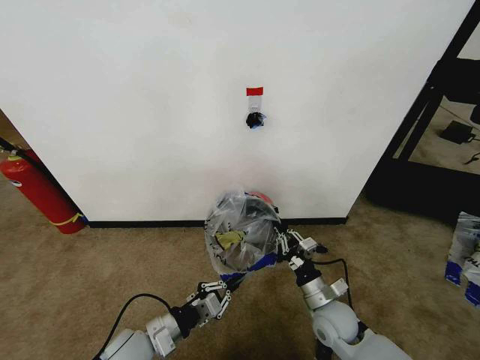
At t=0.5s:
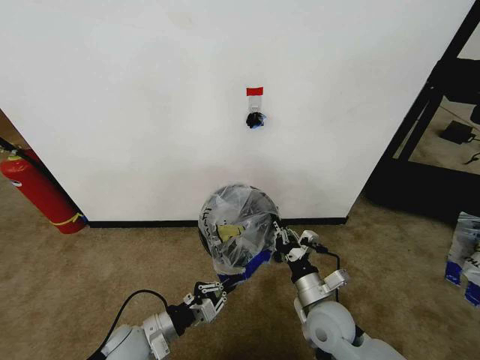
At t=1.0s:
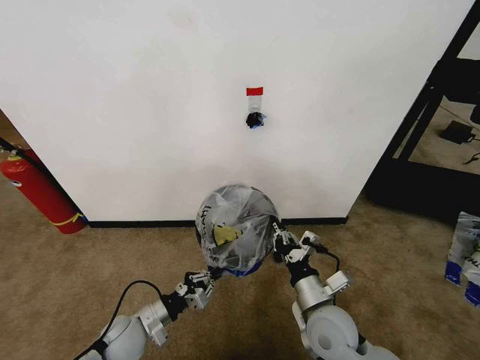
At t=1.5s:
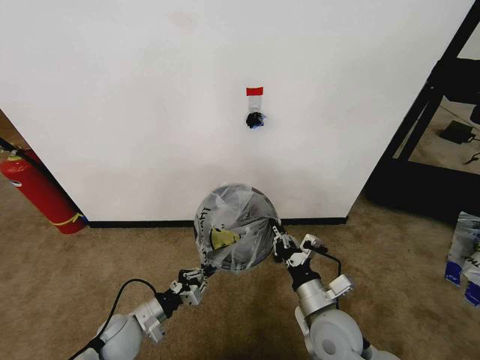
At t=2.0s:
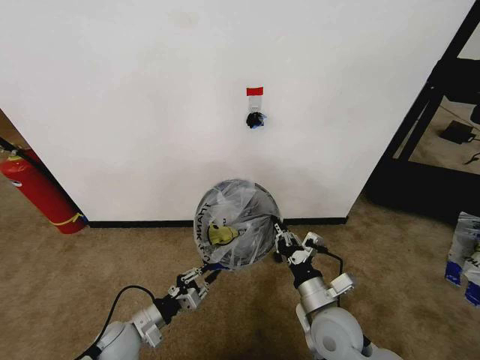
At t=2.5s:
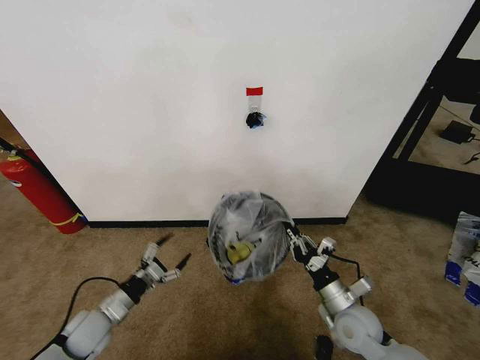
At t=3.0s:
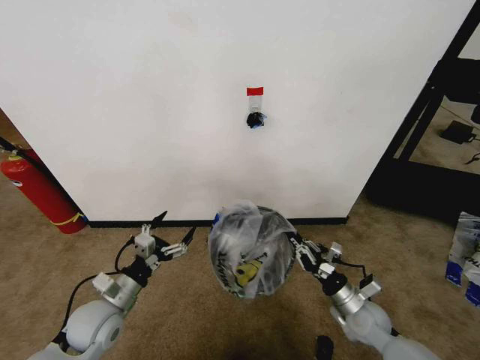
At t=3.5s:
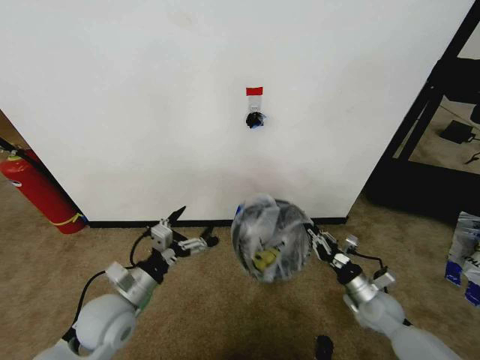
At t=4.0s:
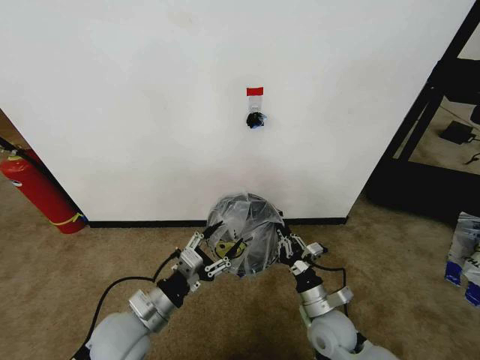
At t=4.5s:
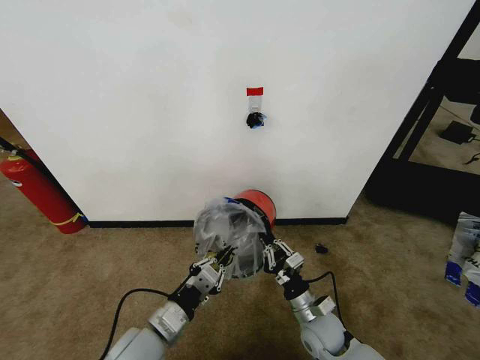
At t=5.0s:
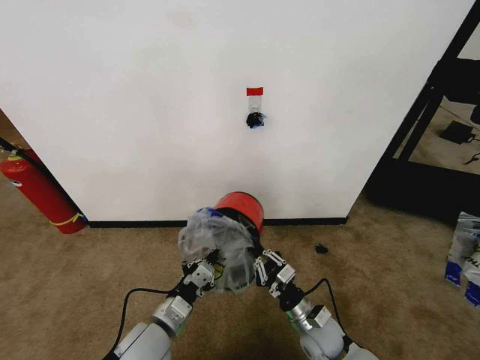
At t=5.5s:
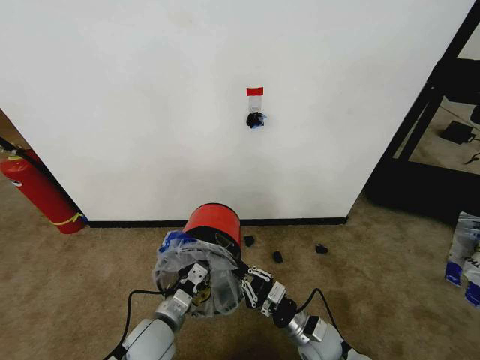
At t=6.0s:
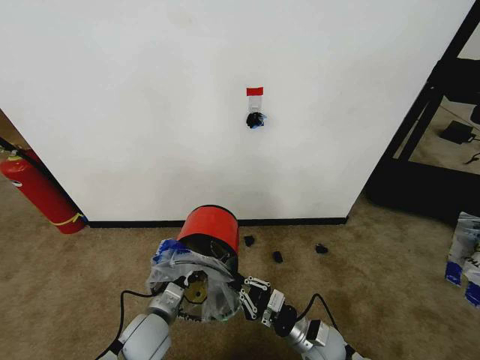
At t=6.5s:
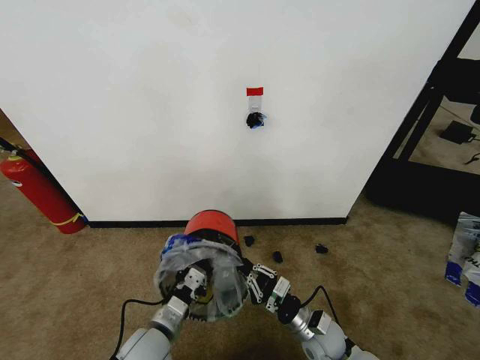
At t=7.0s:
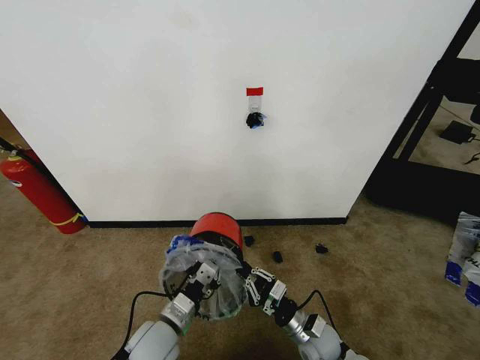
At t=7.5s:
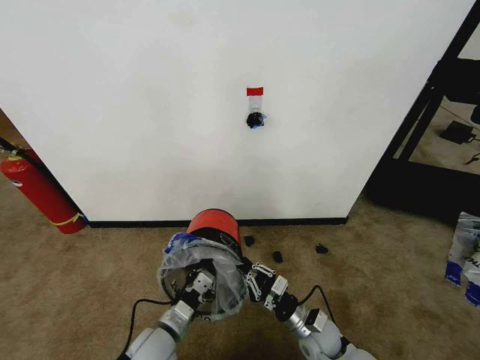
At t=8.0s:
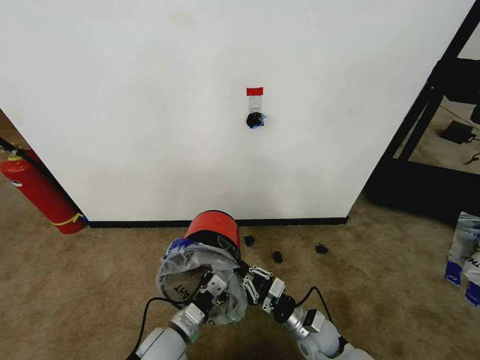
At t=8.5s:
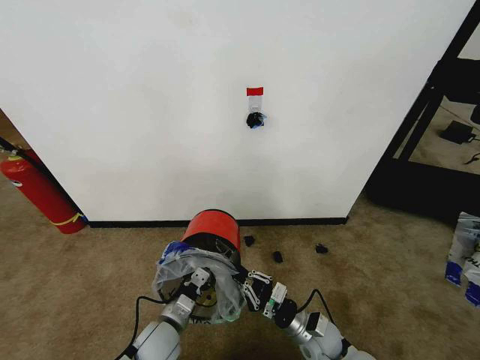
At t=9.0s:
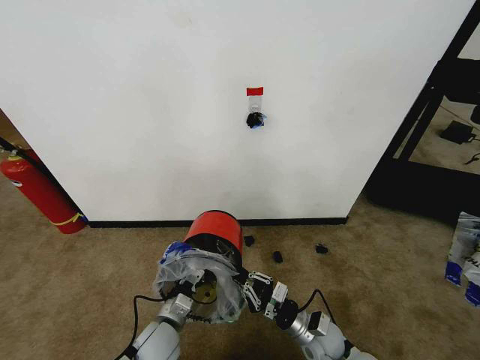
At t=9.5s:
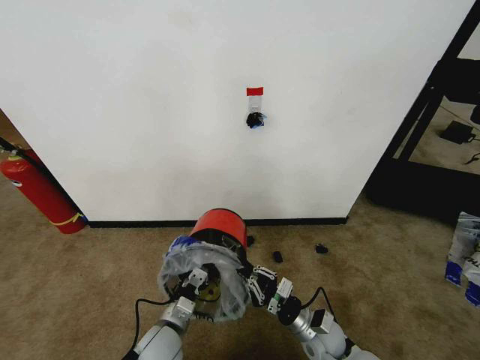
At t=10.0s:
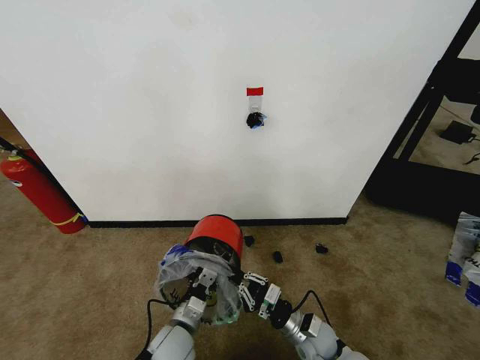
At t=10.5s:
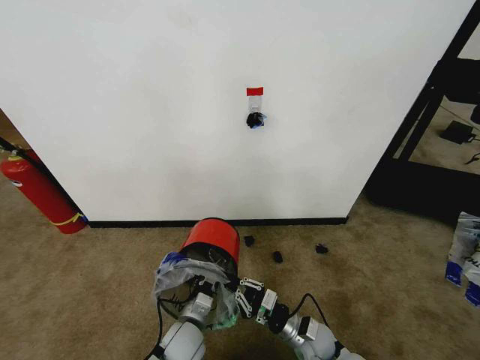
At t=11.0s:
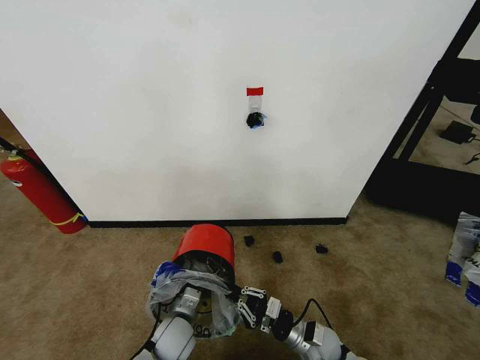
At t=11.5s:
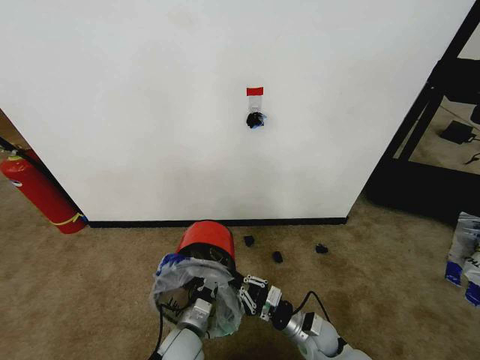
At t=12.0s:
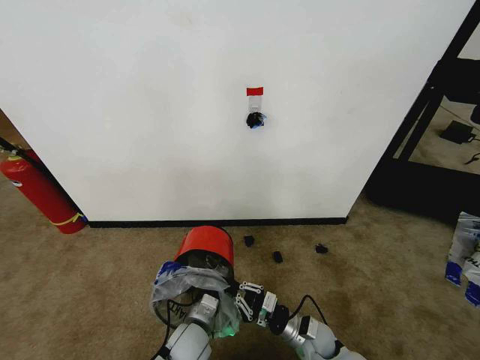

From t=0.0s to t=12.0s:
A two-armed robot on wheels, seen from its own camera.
Task of the whole recording: Pick up the garbage bag from the wall and place it over the trash bin.
From t=0.0s to t=2.0s: The right gripper is displaced upward by some 10 cm; the left gripper goes some 10 cm to the left and downward.
From t=2.0s to t=4.0s: The left gripper goes some 15 cm upward and to the right, and opens, then closes once more. Meanwhile the right gripper moves downward, approximately 10 cm, and reaches about 15 cm to the right, then returns.
From t=4.0s to t=6.0s: The left gripper moves downward, some 10 cm, and closes its fingers.
From t=10.0s to t=12.0s: The grippers move only a little.

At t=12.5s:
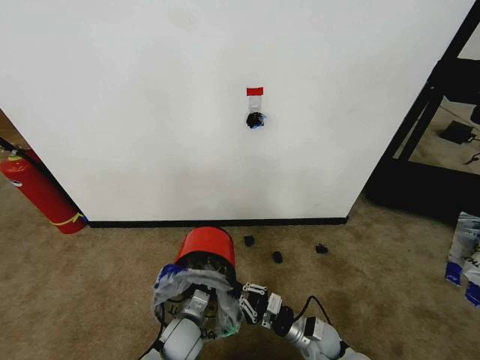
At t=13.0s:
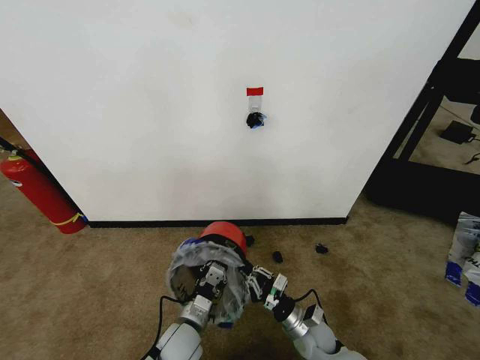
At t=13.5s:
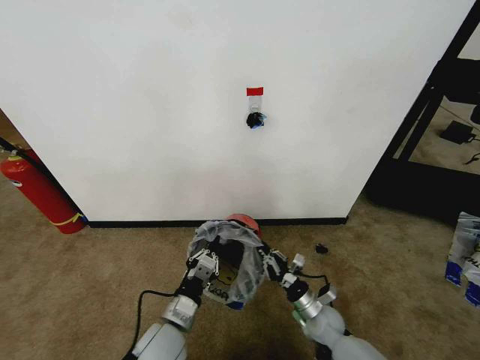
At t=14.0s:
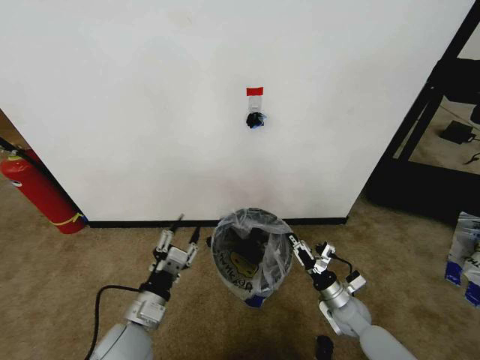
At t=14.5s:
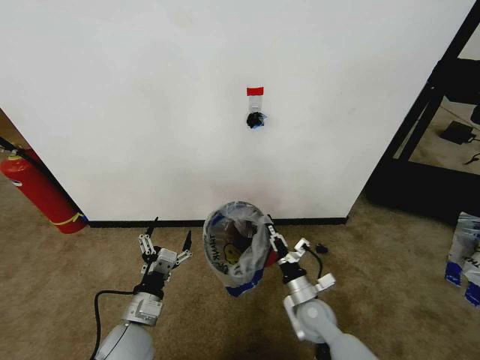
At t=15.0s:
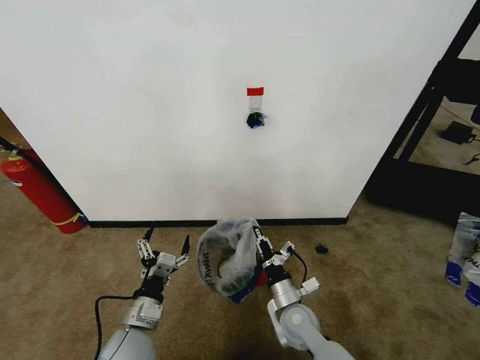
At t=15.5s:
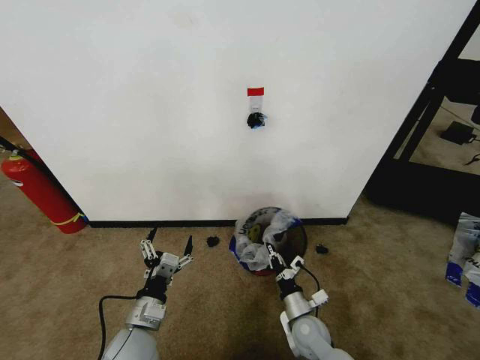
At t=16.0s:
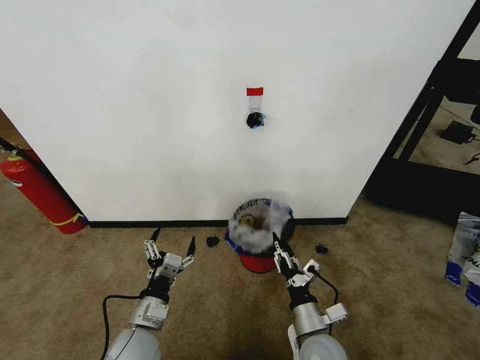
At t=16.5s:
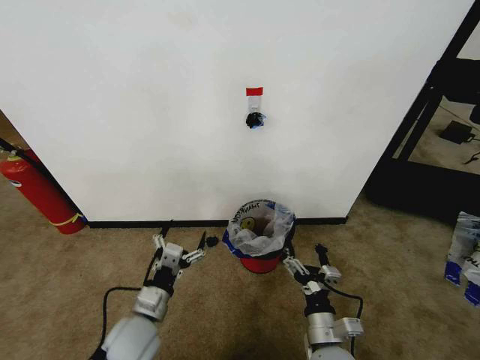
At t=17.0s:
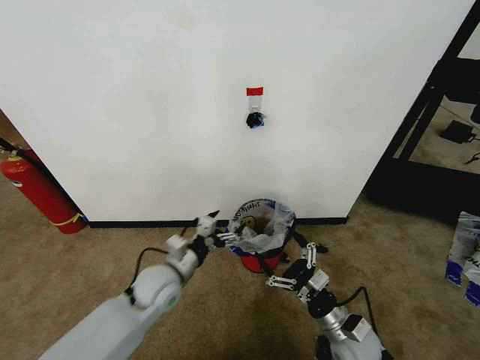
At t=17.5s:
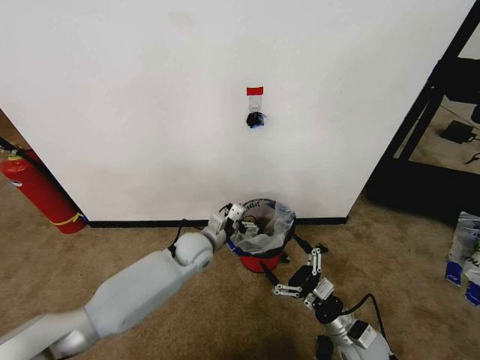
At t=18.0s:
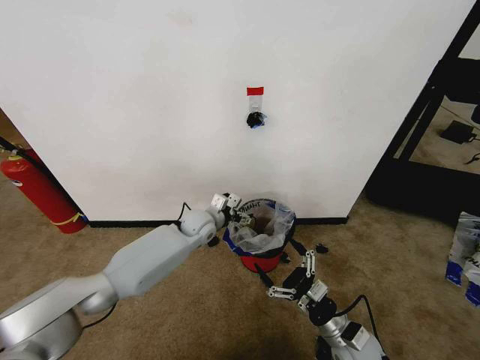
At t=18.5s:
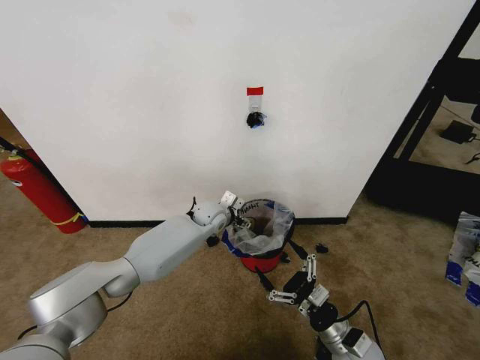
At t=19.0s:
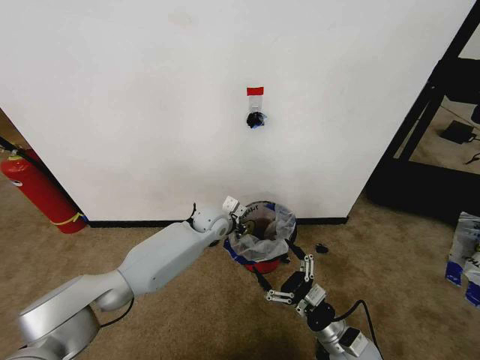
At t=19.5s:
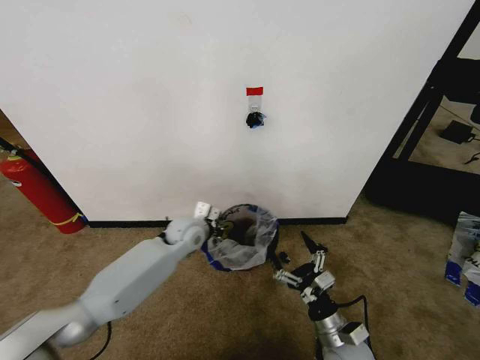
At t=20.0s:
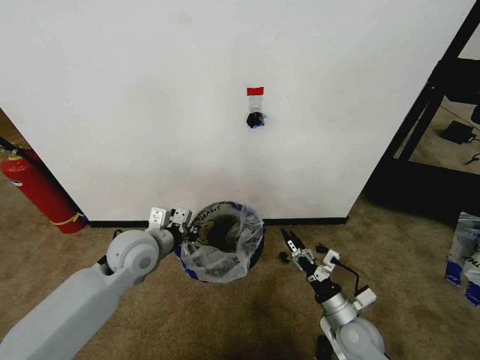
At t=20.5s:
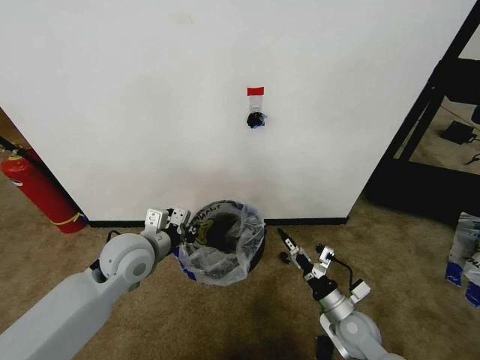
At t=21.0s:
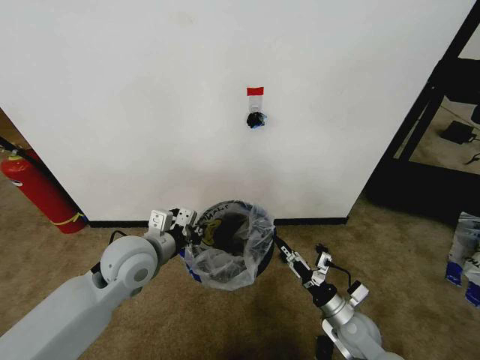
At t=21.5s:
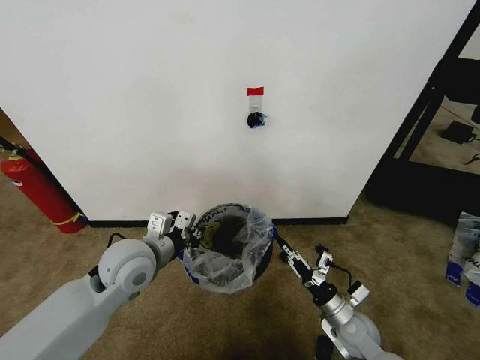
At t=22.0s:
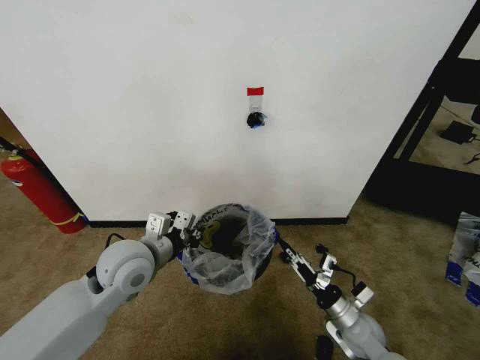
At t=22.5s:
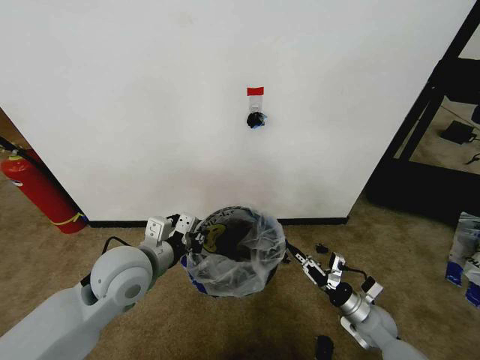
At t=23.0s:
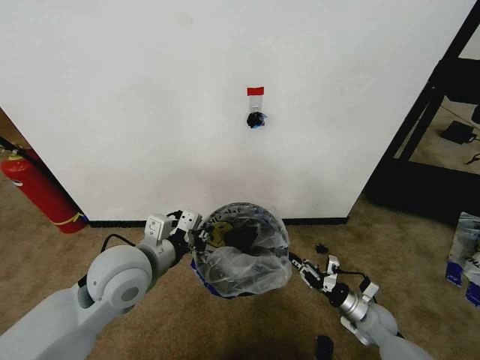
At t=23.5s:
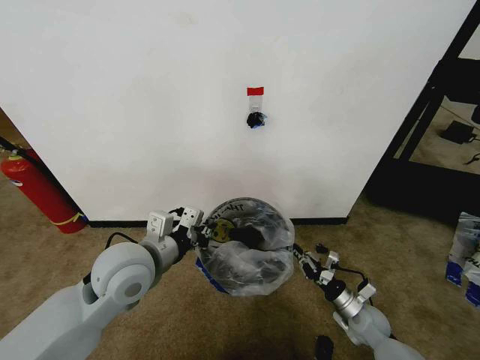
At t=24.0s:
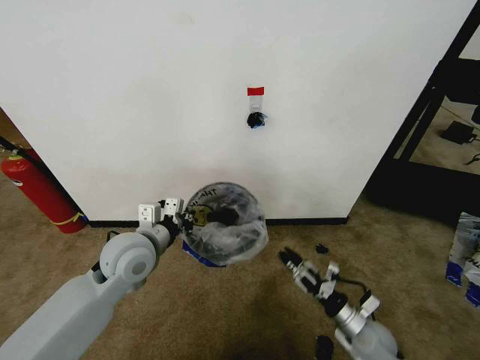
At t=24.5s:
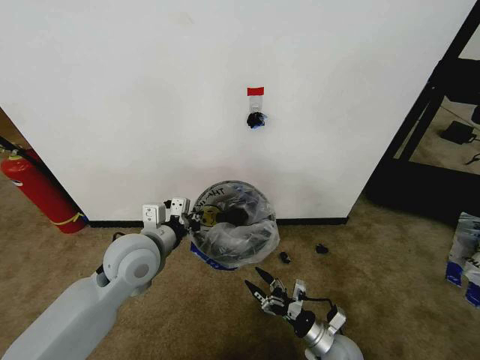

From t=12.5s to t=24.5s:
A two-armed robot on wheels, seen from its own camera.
Task of the whole recording: Pick up the garbage bag from the wall and place it over the trash bin.
From t=12.5s to t=14.5s: The left gripper goes about 15 cm upward and to the left, and opens its fingers, while the right gripper travels to the right and back again, roughly 10 cm each way.
From t=14.5s to t=16.5s: The right gripper goes roughly 10 cm backward and upward, and opens its fingers.
From t=16.5s to t=18.5s: The right gripper shifts approximately 5 cm to the right, while the left gripper shifts roughly 30 cm forward.
From t=18.5s to t=20.5s: The left gripper travels backward, to the left and upward by about 25 cm, and closes up.
From t=20.5s to t=22.5s: The right gripper moves to the right, about 5 cm, and closes its fingers.
From t=22.5s to t=24.5s: The right gripper goes some 10 cm to the left and backward, and opens its fingers.

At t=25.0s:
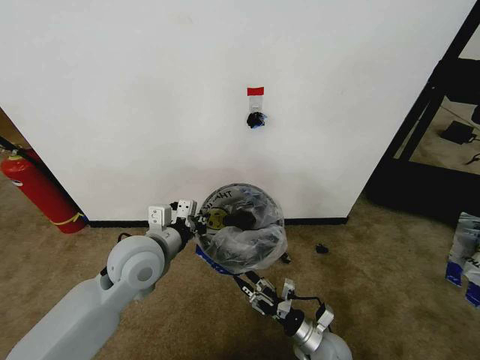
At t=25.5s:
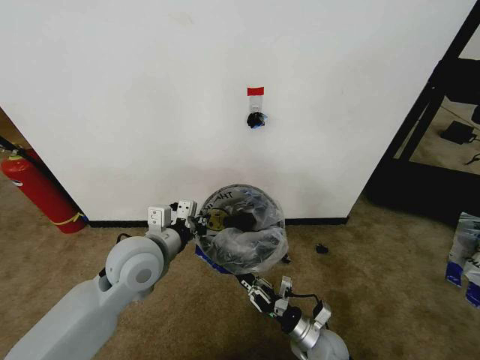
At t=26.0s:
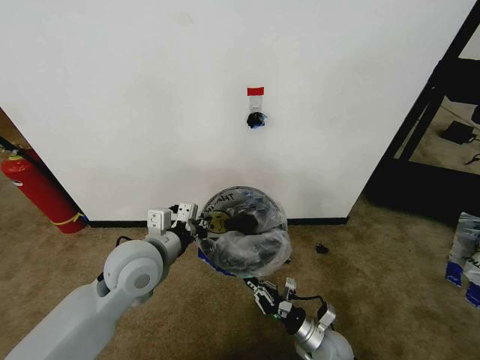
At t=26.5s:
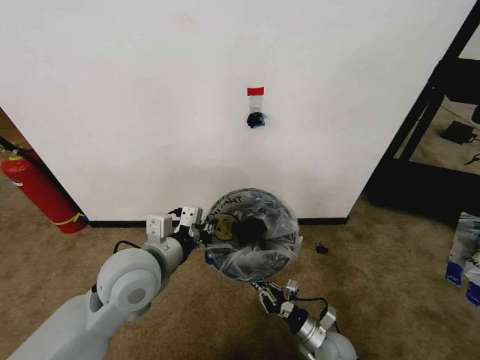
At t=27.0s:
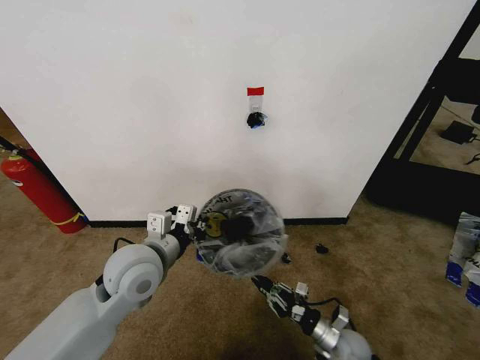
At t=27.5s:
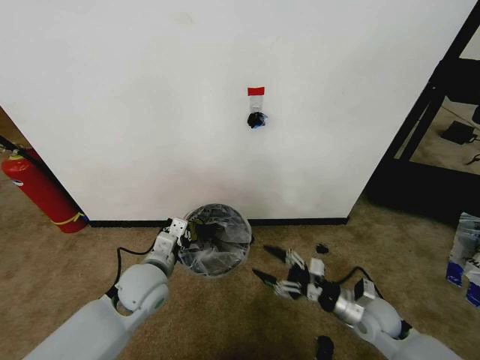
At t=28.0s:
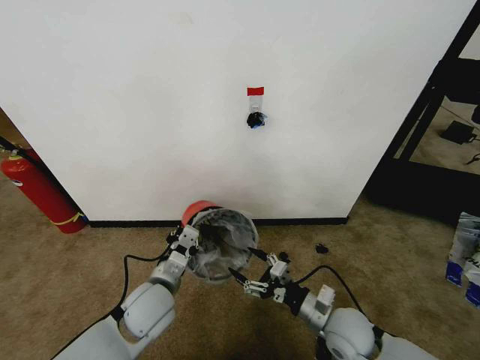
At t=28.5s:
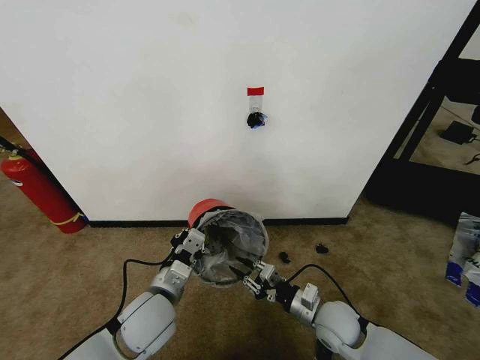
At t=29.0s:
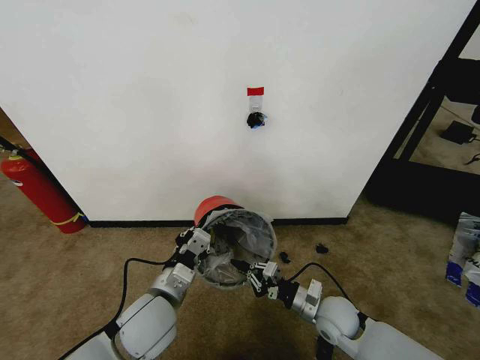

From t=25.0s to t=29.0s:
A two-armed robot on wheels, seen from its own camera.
Task of the whole recording: Pick up the garbage bag from the wall and place it over the trash bin.
From t=25.0s to t=27.0s: The right gripper moves to the right, approximately 5 cm, and closes.
From t=27.0s to t=29.0s: The left gripper goes some 10 cm downward and backward, while the right gripper heads upward and to the left, covering approximately 10 cm, and opens, then closes again.
